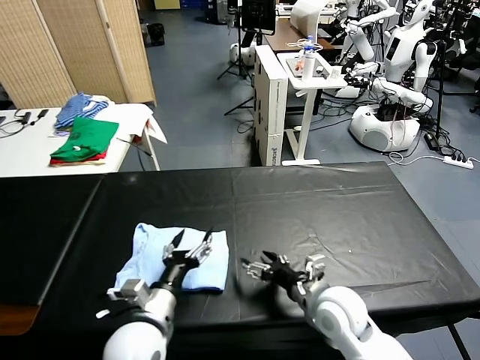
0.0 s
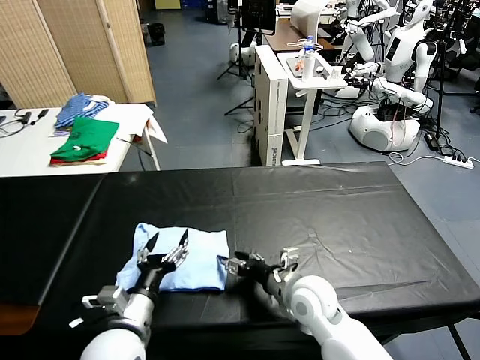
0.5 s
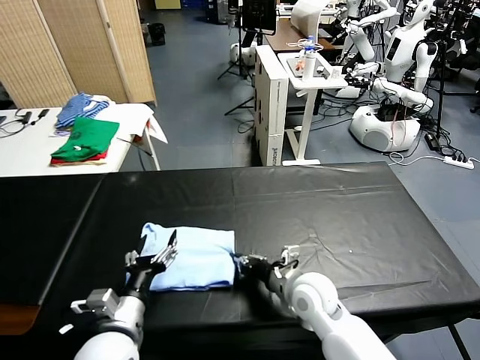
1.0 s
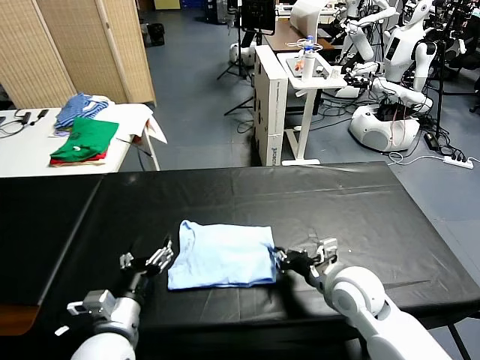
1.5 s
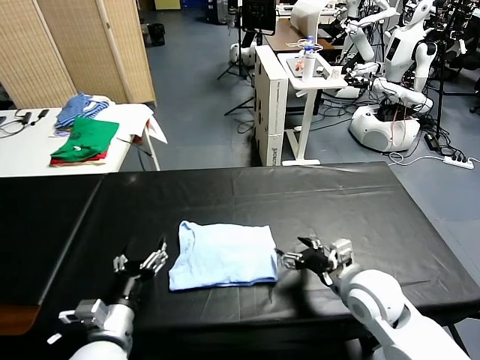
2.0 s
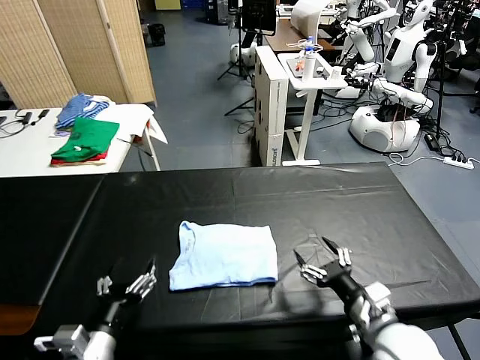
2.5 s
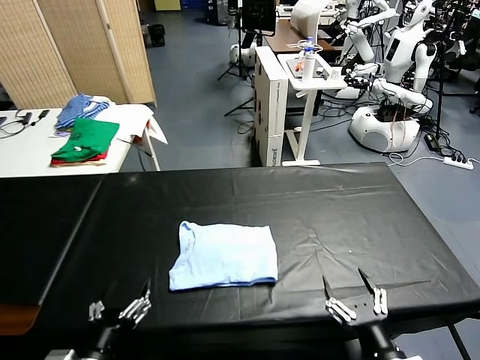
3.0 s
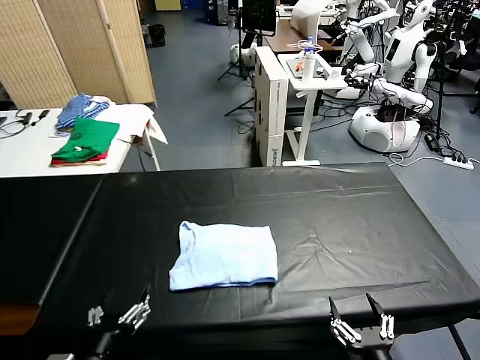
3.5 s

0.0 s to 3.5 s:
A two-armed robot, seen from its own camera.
Task of the whole recording: fold and organize the clothes.
Step, 0.0 to 1.5 s: Drag the clothes to the center of the table.
0.0 to 2.0 s: The left gripper travels to the left by about 10 cm. Meanwhile the right gripper moves roughly 5 cm, and closes and opens again.
2.0 to 3.5 s: The right gripper heads backward, covering roughly 25 cm, while the left gripper travels backward by roughly 10 cm.

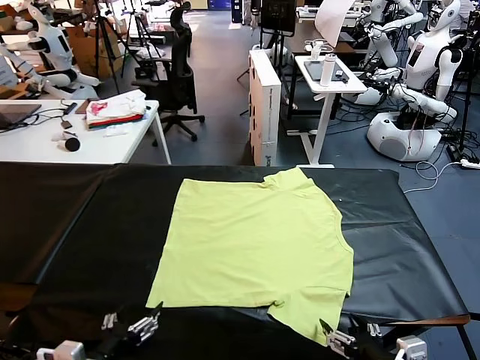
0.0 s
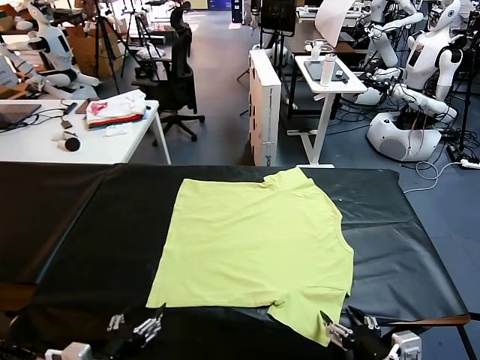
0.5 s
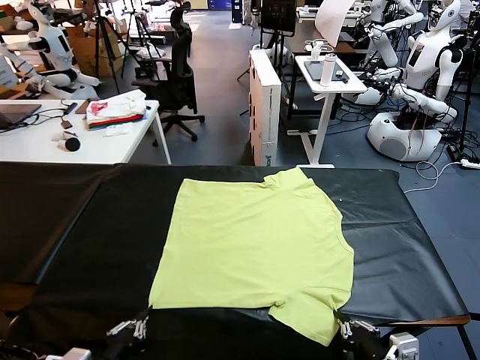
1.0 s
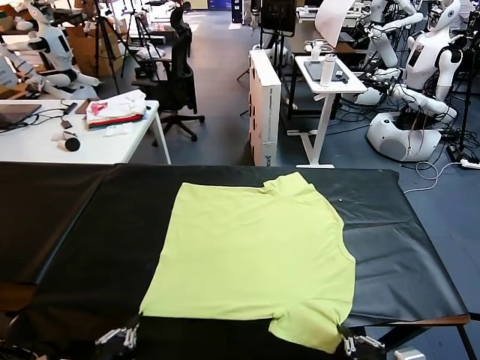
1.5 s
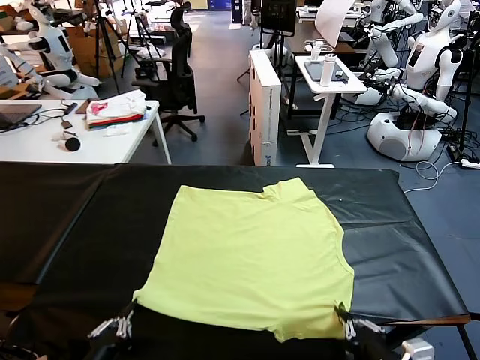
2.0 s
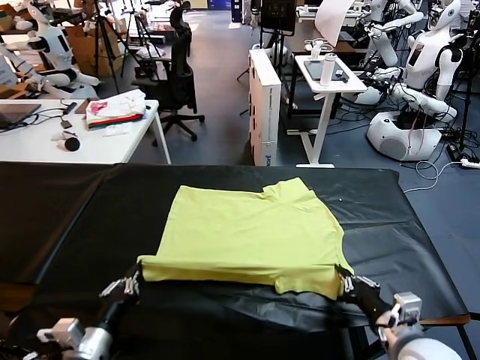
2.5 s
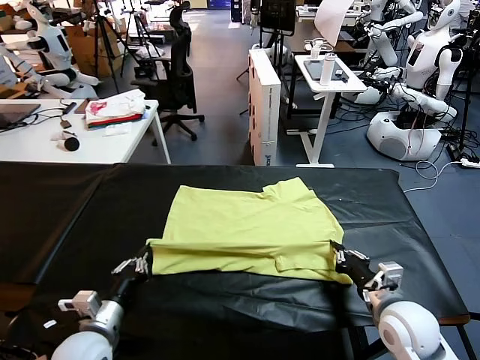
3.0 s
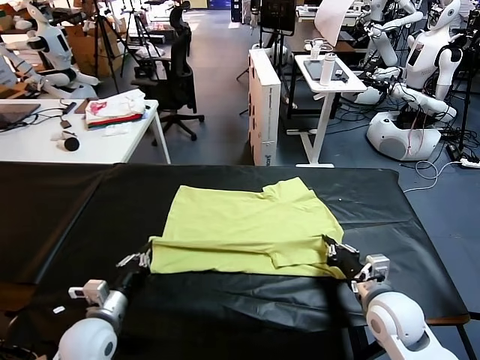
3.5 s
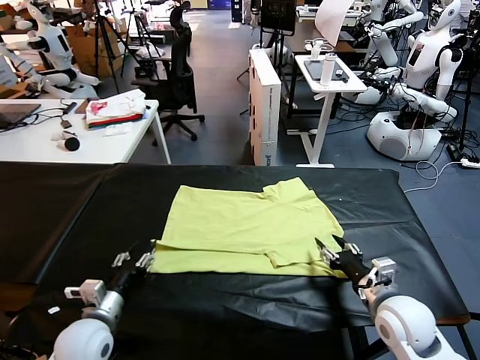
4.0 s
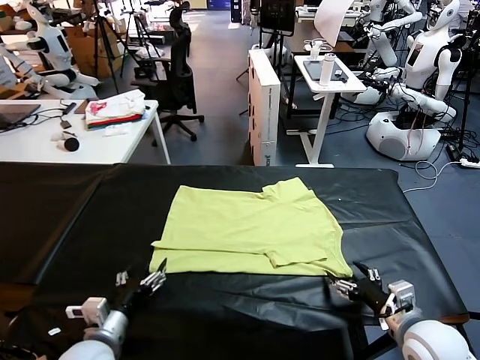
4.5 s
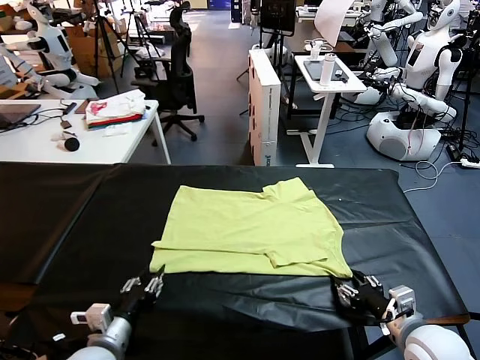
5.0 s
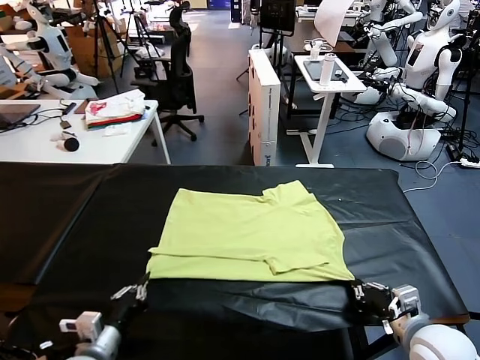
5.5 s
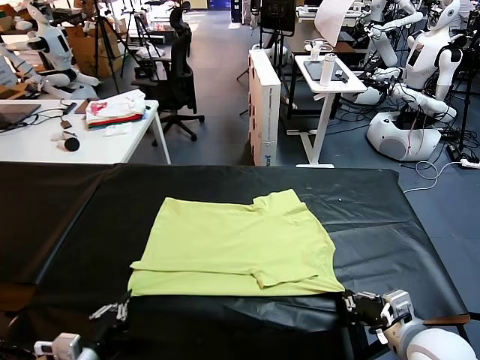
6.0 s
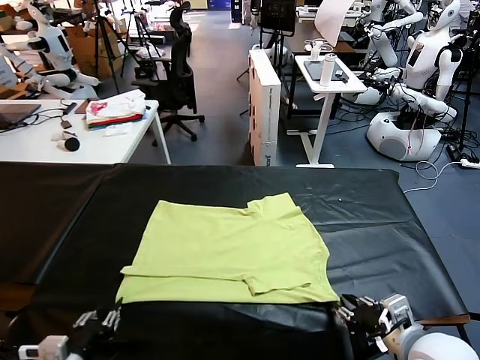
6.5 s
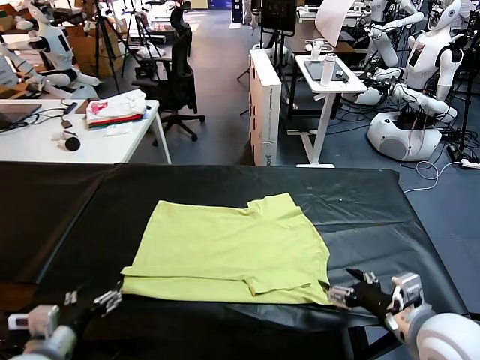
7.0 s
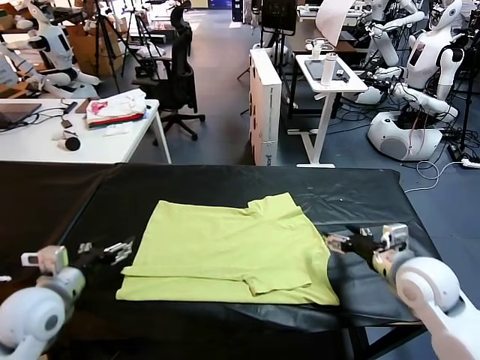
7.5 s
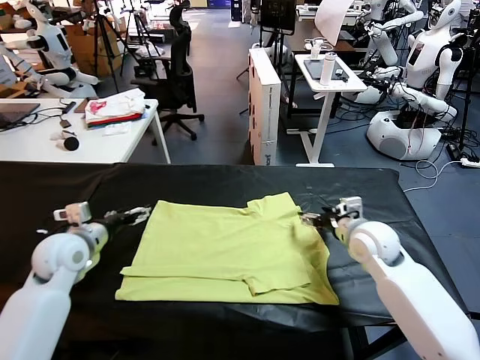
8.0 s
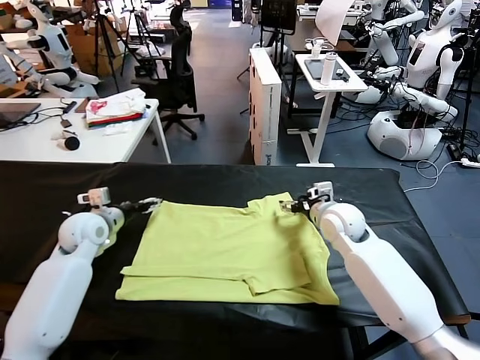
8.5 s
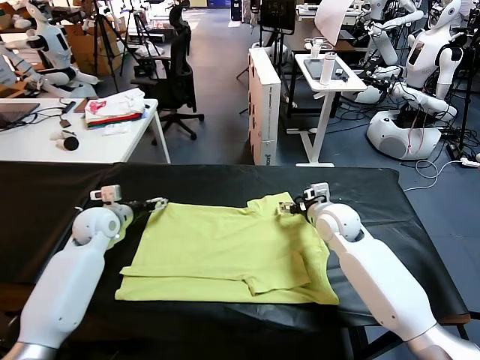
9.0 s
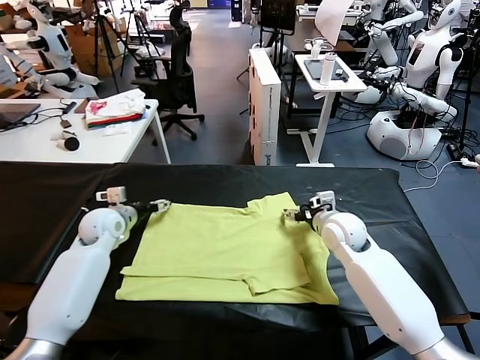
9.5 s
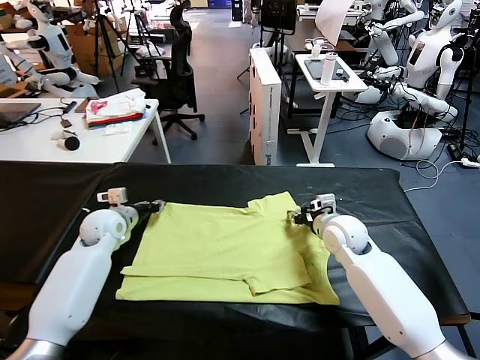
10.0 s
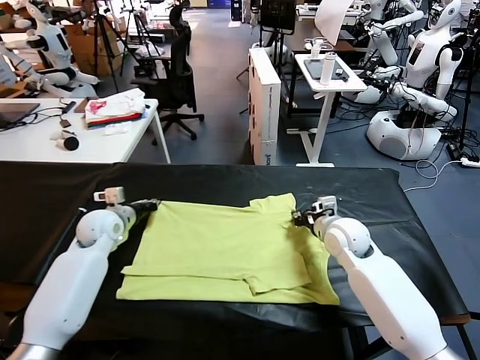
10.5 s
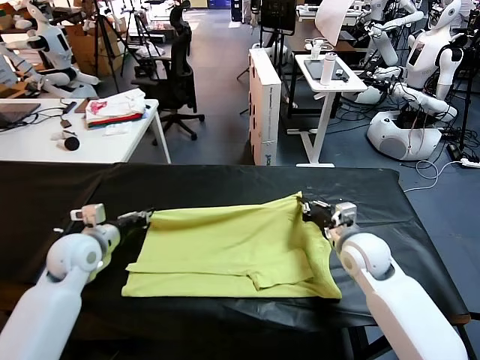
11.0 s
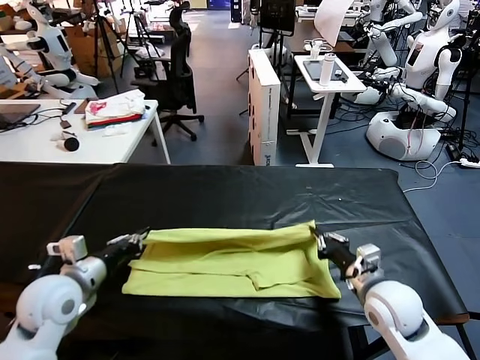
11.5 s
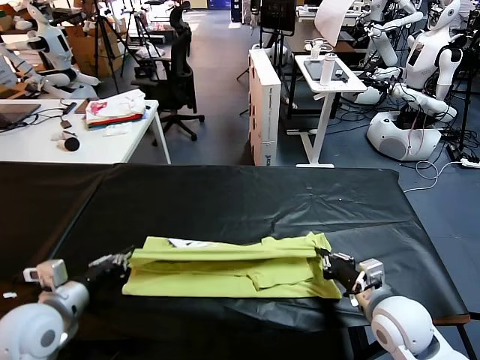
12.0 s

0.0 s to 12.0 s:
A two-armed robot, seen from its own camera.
Task of the whole recording: fold and organize the clothes.
Step, 0.0 to 1.0 s: use both grippers simultaneously to clamp the lower edge of the clothing fabric.
Step, 1.5 to 4.0 s: use both grippers to drag the lower edge of the fabric forward and fold it over the upper edge.
Step, 4.5 to 6.5 s: Drag the clothes downward with both gripper.
Step, 7.0 to 10.5 s: use both grippers simultaneously to clamp the upper edge of the clothing fabric.
2.0 to 4.0 s: The right gripper travels forward by approximately 5 cm, and opens up. Meanwhile the left gripper moves forward, approximately 15 cm, and opens its fingers.
4.0 to 6.0 s: The right gripper moves about 5 cm, and closes; the left gripper heads backward, covering about 10 cm, and closes its fingers.
6.0 to 8.0 s: The two grippers go approximately 25 cm forward. The right gripper opens its fingers. Meanwhile the left gripper opens up.
8.0 to 10.0 s: The left gripper is displaced forward and downward by about 10 cm, and closes its fingers, while the right gripper closes up.
10.0 to 12.0 s: The grippers both shift backward by some 25 cm.

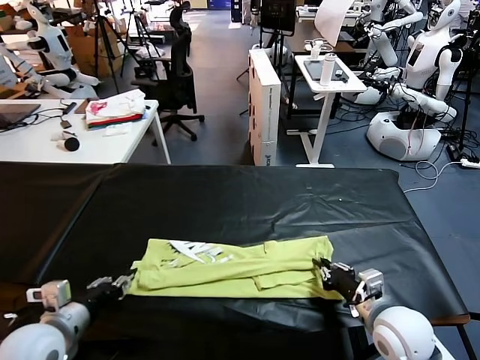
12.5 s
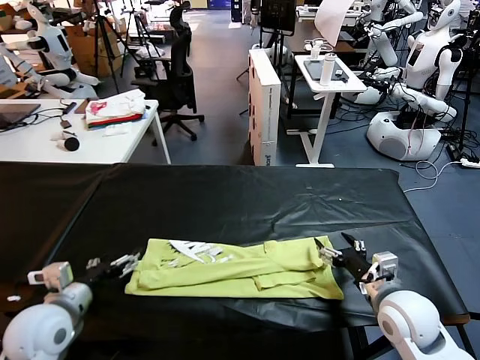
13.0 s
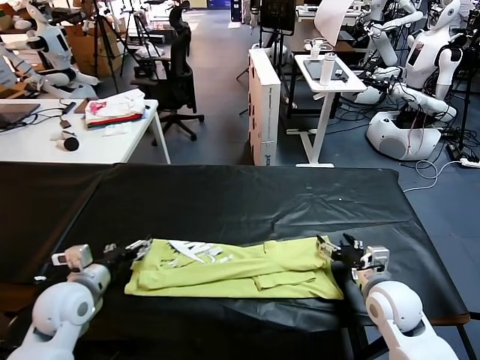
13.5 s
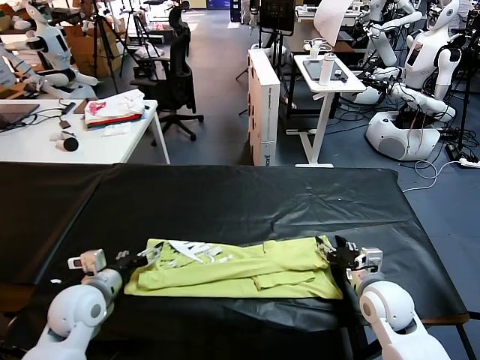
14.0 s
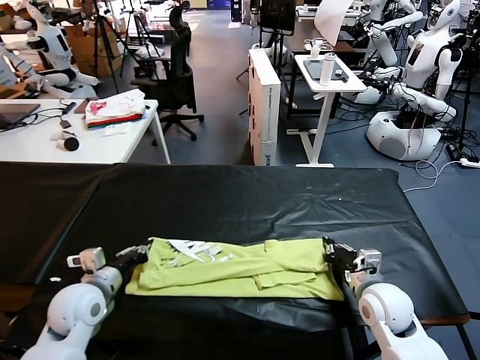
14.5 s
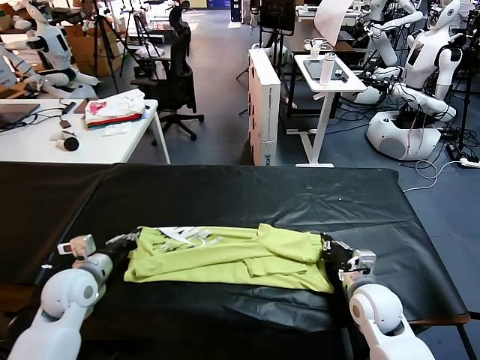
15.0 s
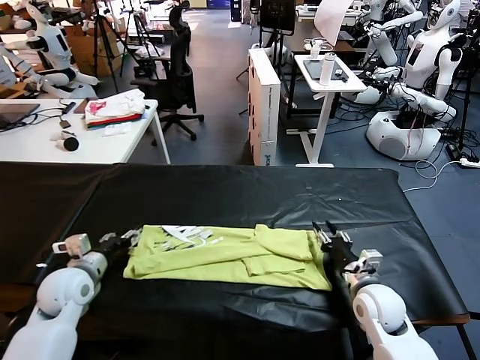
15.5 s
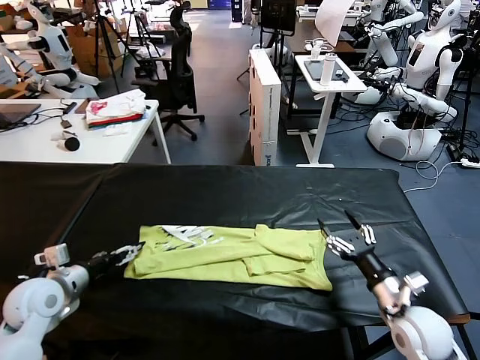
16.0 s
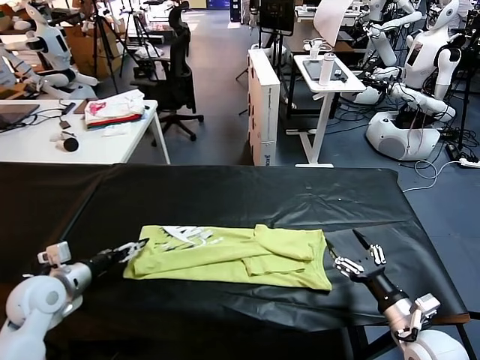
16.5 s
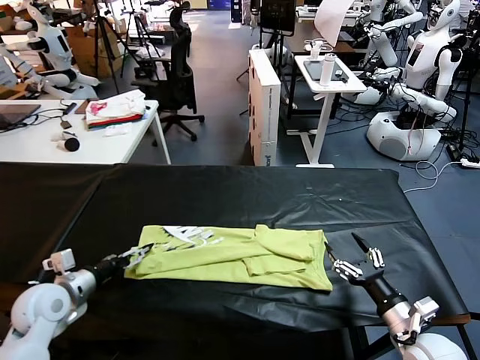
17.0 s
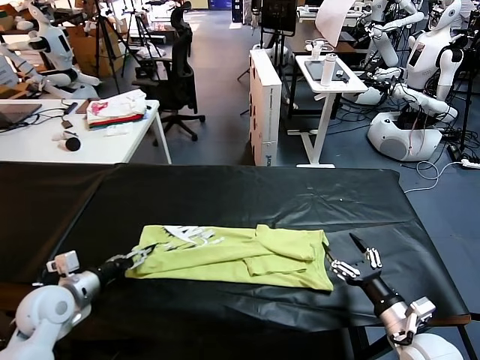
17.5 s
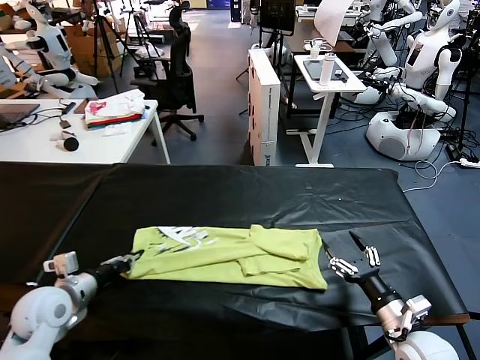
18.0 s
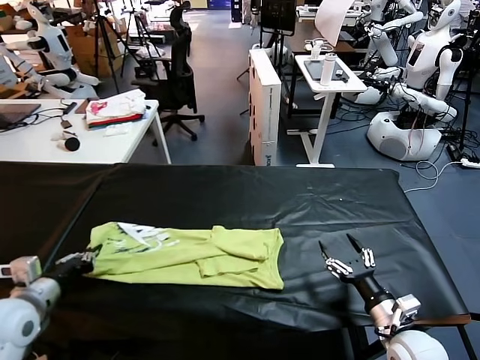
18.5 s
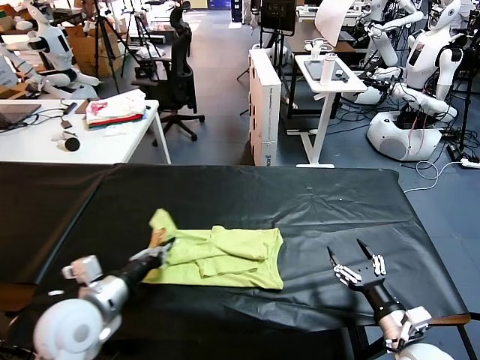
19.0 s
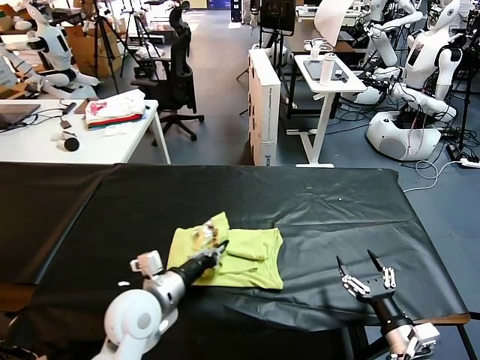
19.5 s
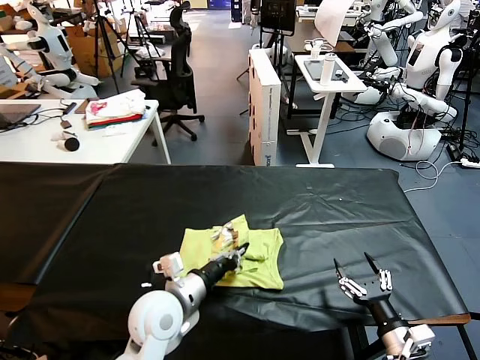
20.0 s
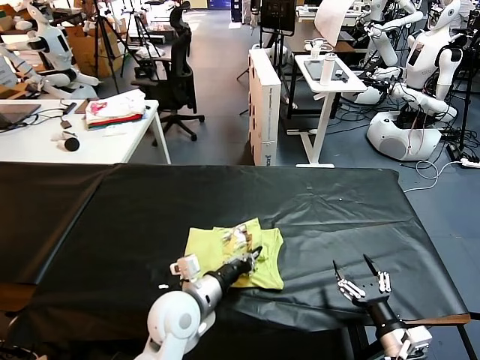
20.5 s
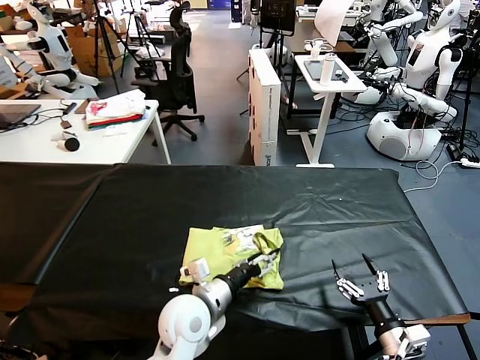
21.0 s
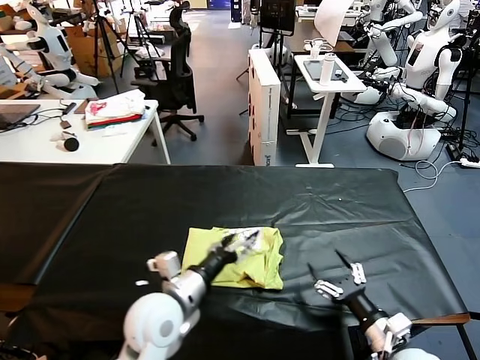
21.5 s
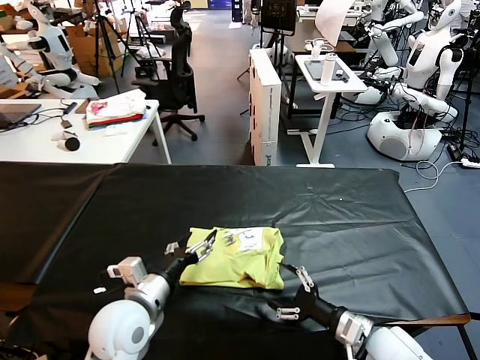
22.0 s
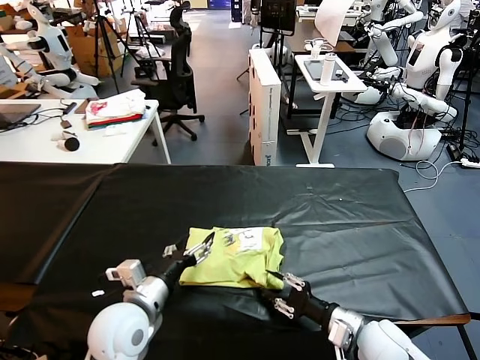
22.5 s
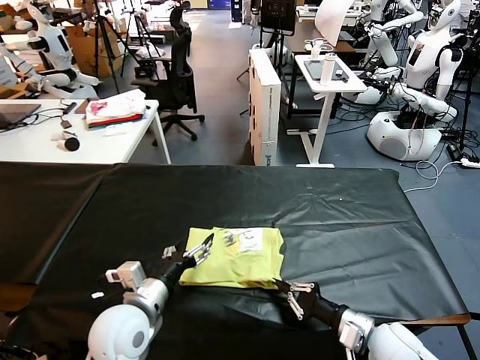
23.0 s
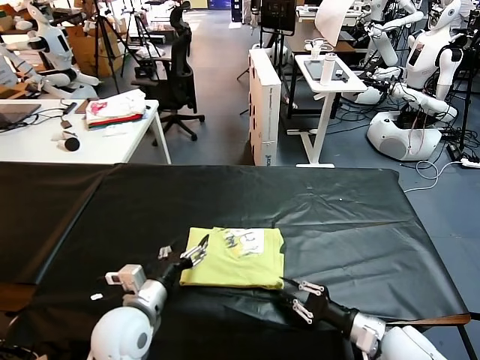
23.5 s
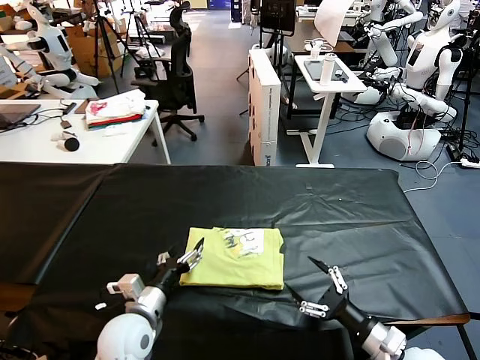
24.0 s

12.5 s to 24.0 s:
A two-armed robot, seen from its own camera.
Task of the whole recording: fold and organize the clothes.
Step, 13.0 to 17.5 s: use the left gripper to clamp the left edge of the fabric.
Step, 18.0 to 21.0 s: use the left gripper to drag the left edge of the fabric to the left and folds it over the right edge.
12.5 to 14.5 s: Both grippers move forward, approximately 5 cm. The left gripper closes. Meanwhile the right gripper closes up.
14.5 to 16.5 s: The right gripper shifts some 10 cm backward and to the right, and opens its fingers; the left gripper goes about 10 cm to the left, and opens.
16.5 to 18.5 s: The left gripper moves backward, roughly 5 cm, and closes up.
18.5 to 20.0 s: The left gripper travels to the right by roughly 25 cm. The right gripper is displaced backward by roughly 5 cm.
20.0 to 22.0 s: The left gripper travels to the left by some 5 cm, and opens up. The right gripper is displaced forward and to the left by roughly 10 cm.
22.0 to 24.0 s: The right gripper ends up about 5 cm from where it was, and closes, then opens again. Meanwhile the left gripper heads downward, covering about 5 cm.
